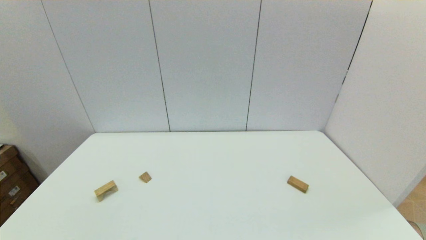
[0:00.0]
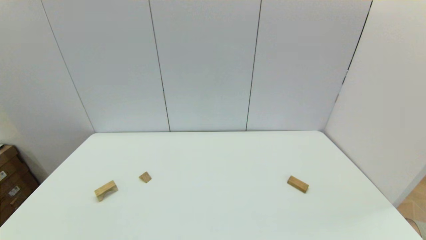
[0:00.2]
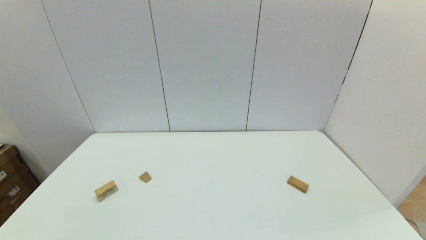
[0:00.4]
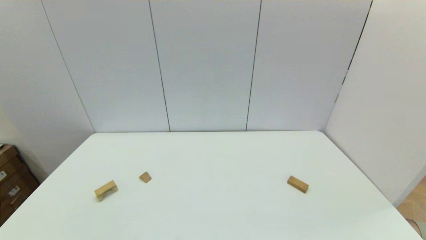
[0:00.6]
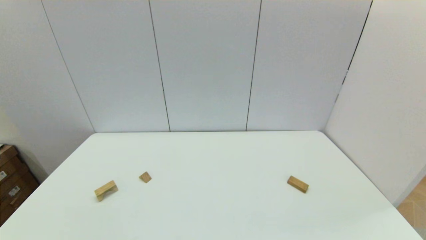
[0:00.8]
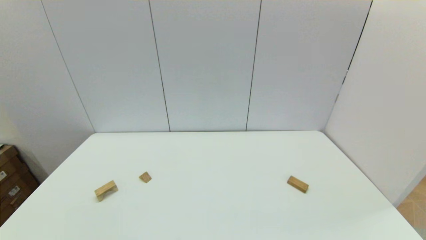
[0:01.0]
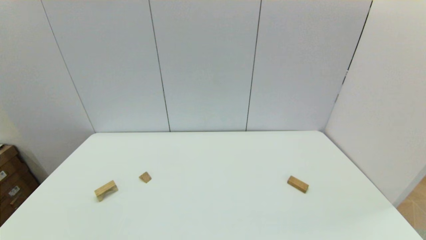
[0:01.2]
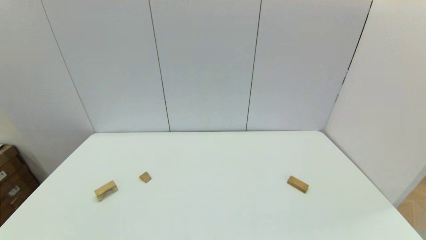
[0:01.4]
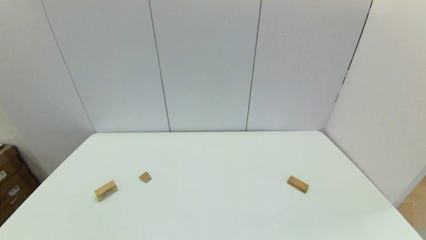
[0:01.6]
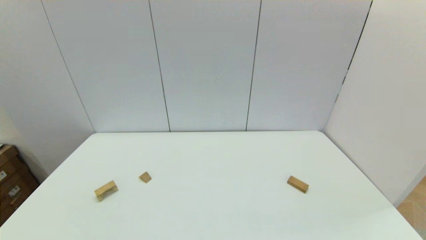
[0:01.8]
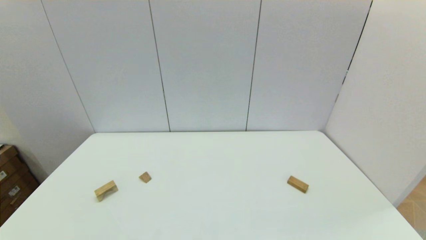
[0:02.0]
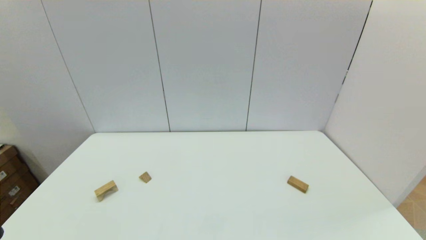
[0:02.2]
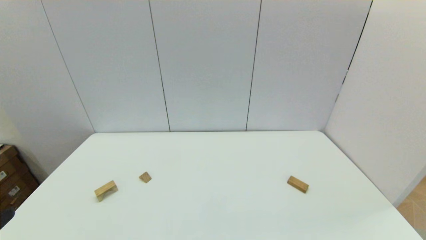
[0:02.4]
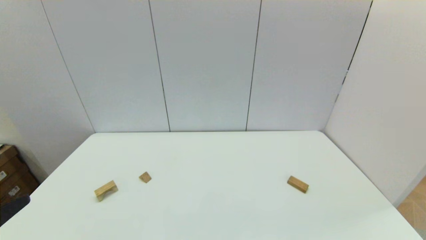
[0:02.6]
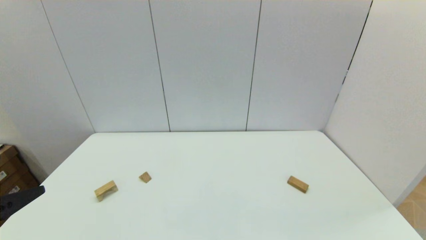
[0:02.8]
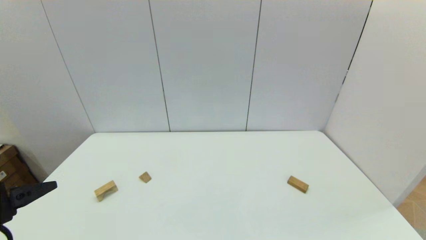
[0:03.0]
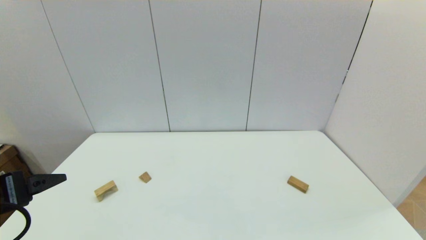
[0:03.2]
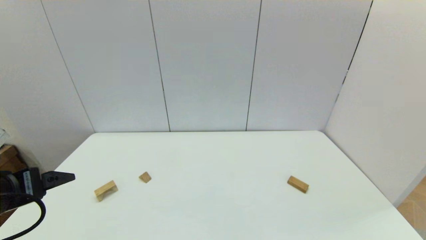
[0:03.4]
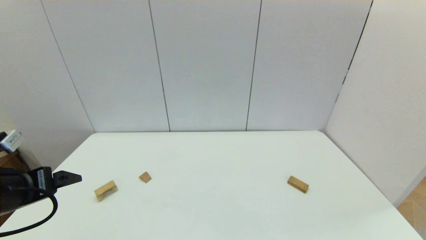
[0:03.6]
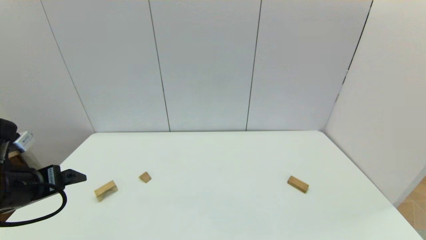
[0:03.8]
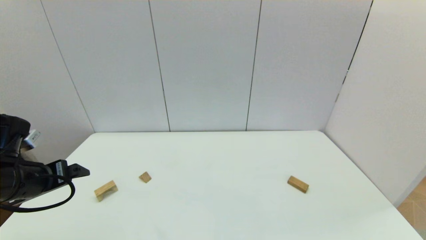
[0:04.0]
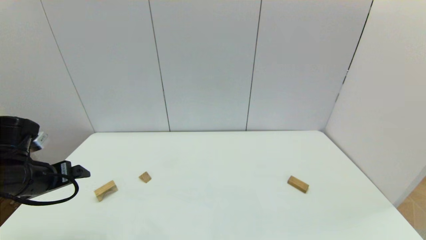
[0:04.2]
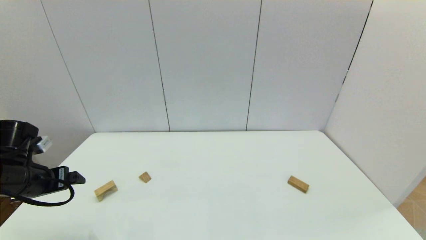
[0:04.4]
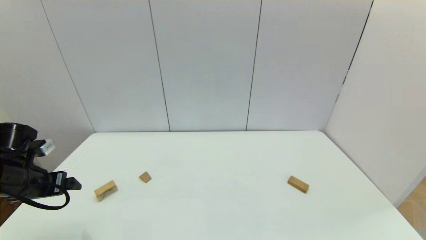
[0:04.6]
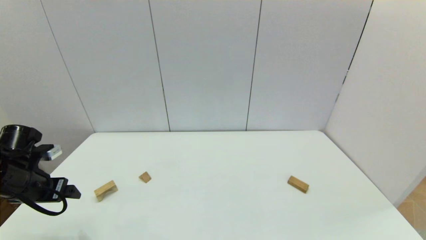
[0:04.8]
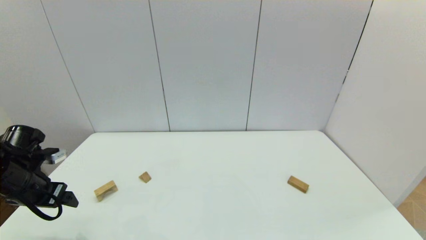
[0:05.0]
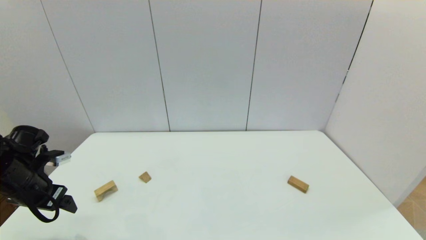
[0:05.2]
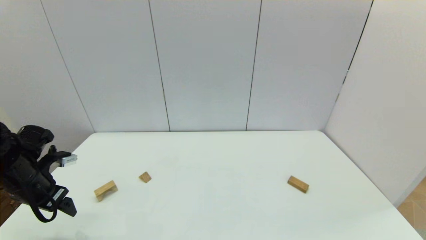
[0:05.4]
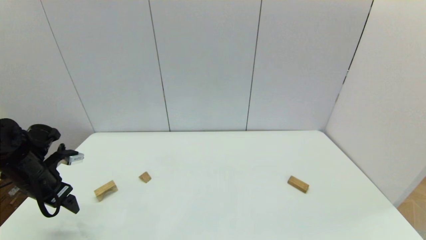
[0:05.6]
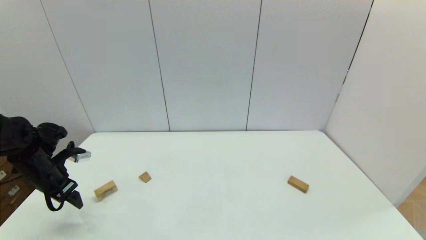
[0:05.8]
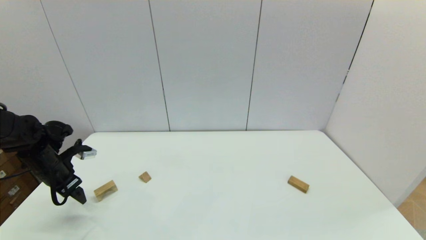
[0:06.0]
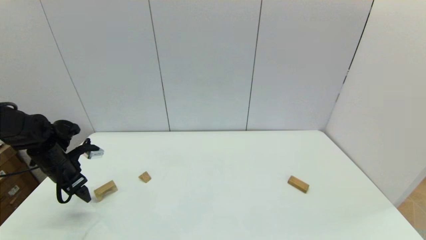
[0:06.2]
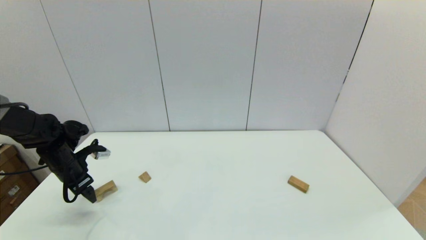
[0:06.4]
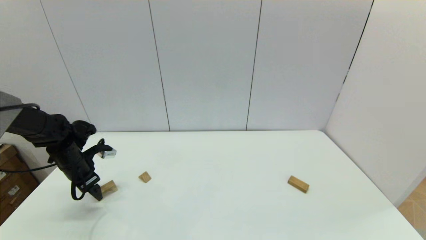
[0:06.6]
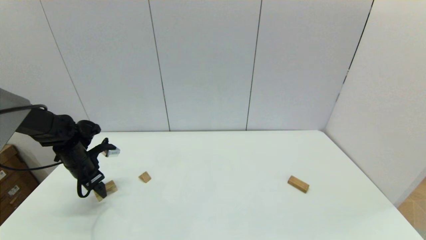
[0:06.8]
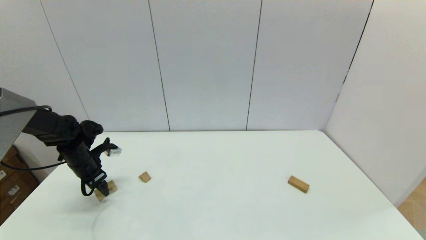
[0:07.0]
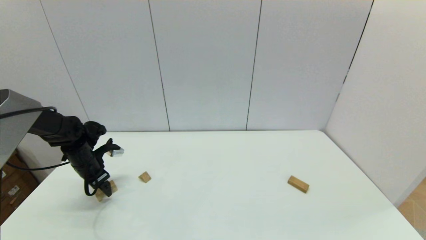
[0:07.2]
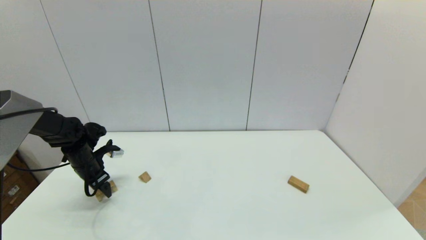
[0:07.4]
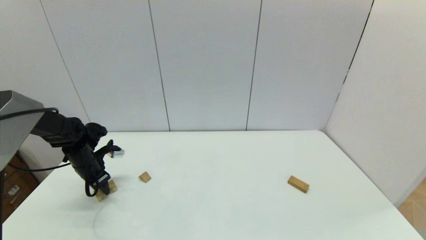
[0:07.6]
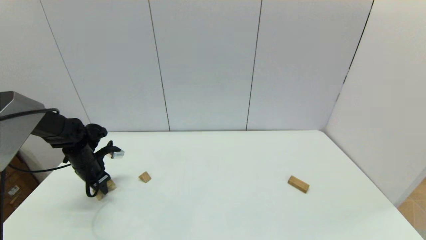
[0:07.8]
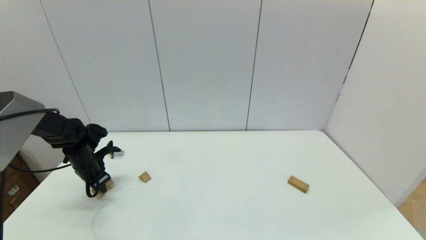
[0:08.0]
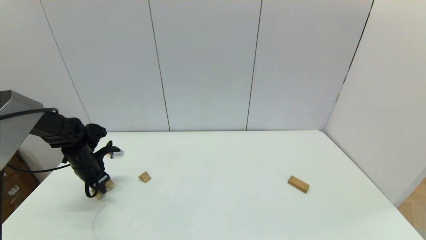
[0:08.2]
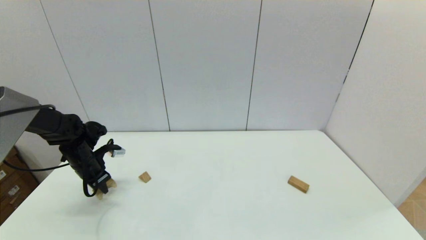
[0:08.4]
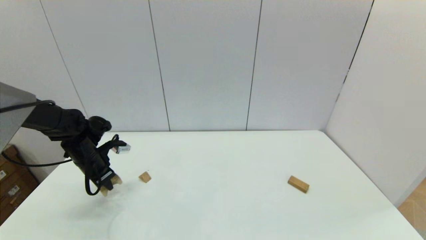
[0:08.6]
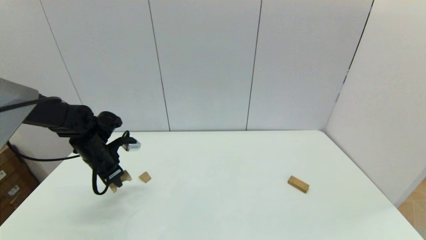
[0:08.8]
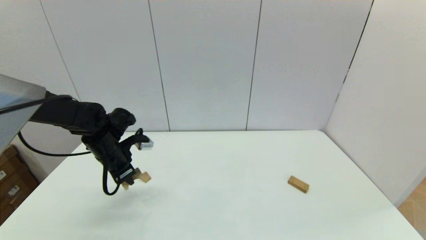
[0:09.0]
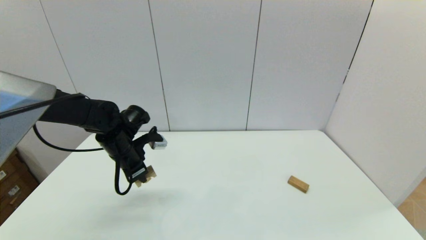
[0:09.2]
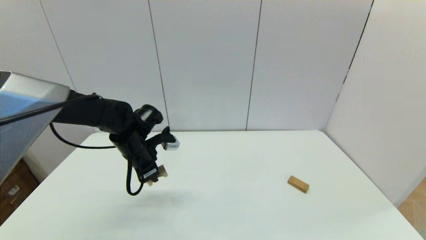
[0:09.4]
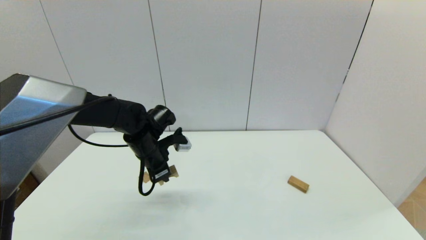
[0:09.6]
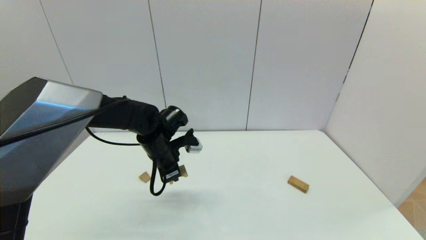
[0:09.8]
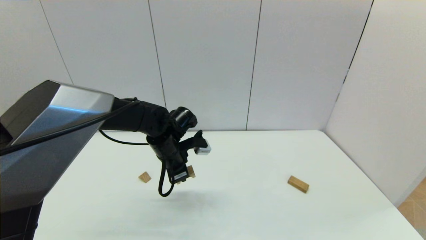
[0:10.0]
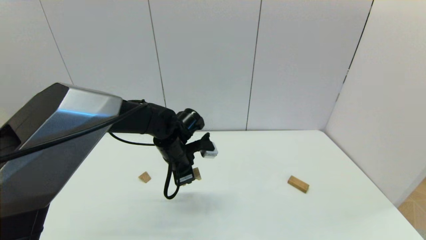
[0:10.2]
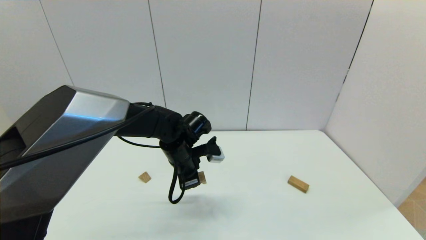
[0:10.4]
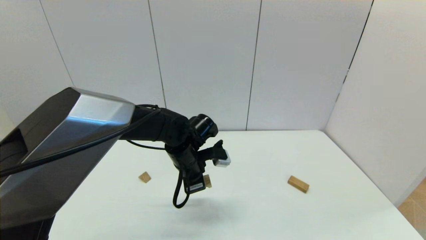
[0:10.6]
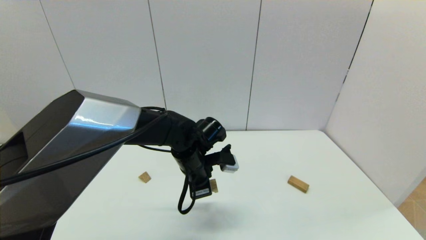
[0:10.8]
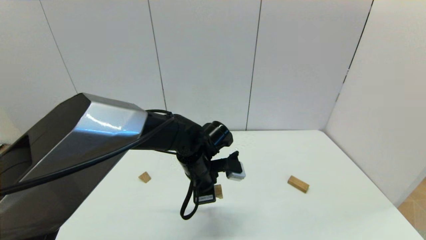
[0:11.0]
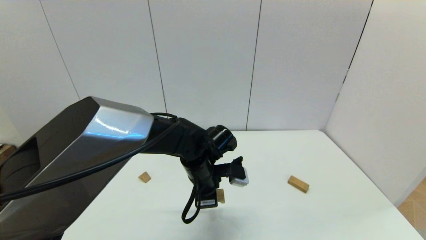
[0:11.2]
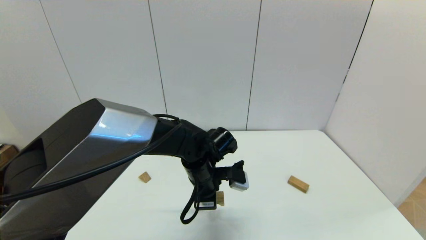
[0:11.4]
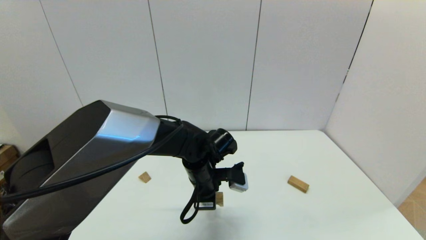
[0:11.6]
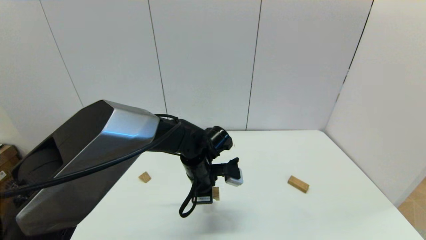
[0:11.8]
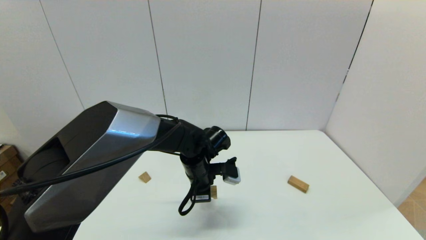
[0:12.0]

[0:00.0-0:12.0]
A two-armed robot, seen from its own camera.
Task of the whole recording: place the arched building blocks in the center of the table, set up the rectangular building blocks, and then set up the triangular building blocks.
Step, 0:02.2 to 0:07.8: Grasp the arch-shaped block with the left gripper.
0:01.6 to 0:03.0: The left gripper goes about 15 cm forward and upward.
0:03.0 to 0:04.4: The left gripper goes some 15 cm forward, downward and to the left.
0:04.4 to 0:06.0: The left gripper moves forward, roughly 10 cm.
0:06.0 to 0:07.6: The left gripper shifts roughly 5 cm forward, and closes its fingers.
0:07.6 to 0:09.0: The left gripper is displaced to the right and upward by roughly 15 cm, and closes up.
0:09.0 to 0:10.4: The left gripper travels to the right by roughly 20 cm.

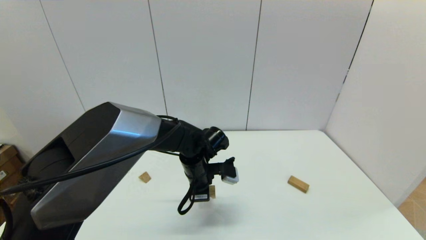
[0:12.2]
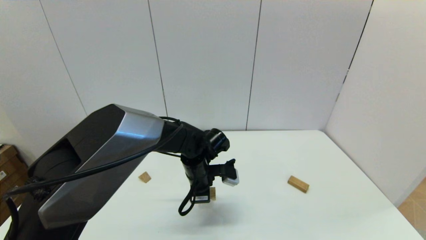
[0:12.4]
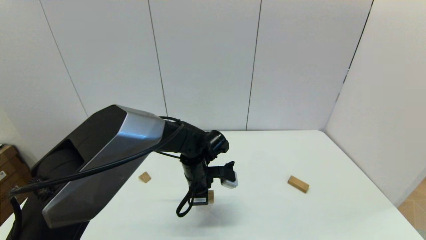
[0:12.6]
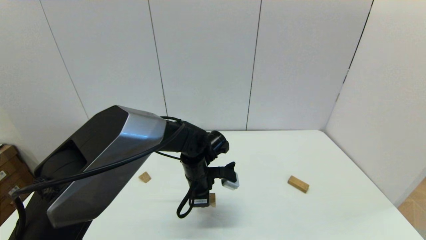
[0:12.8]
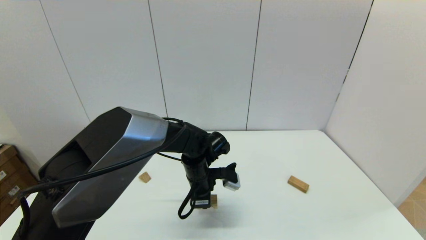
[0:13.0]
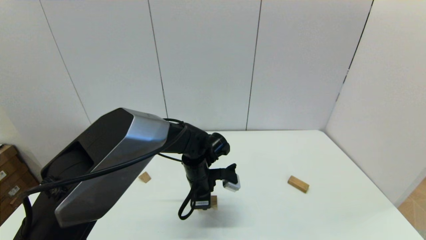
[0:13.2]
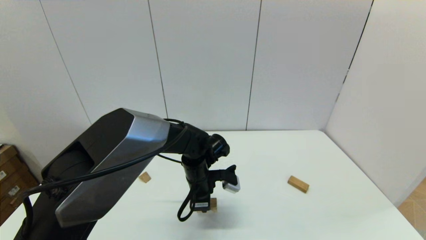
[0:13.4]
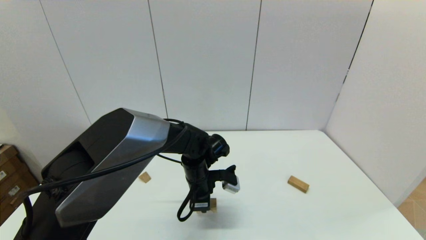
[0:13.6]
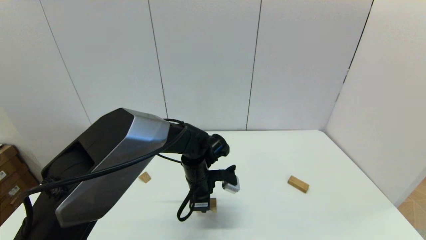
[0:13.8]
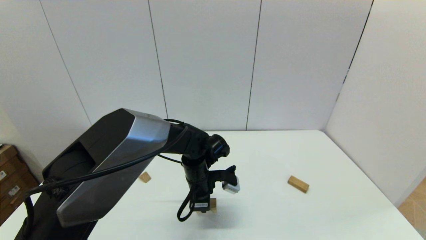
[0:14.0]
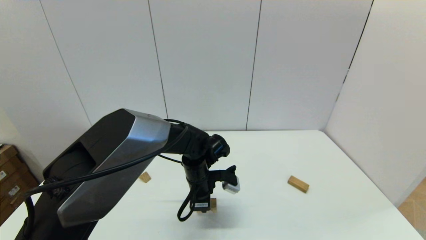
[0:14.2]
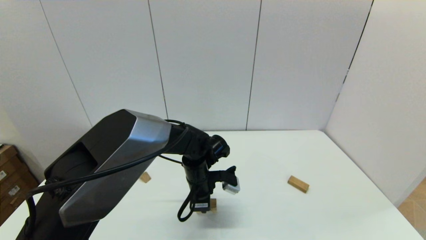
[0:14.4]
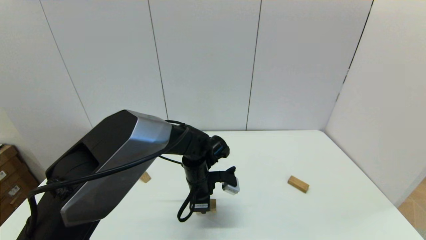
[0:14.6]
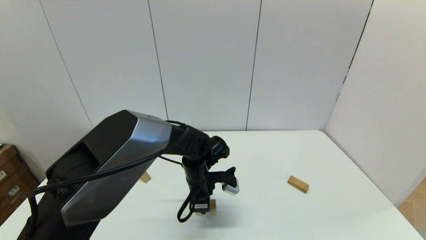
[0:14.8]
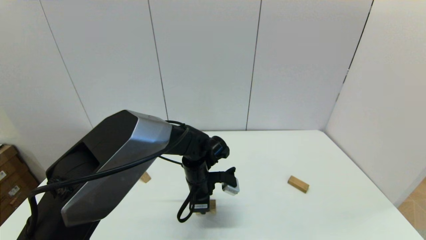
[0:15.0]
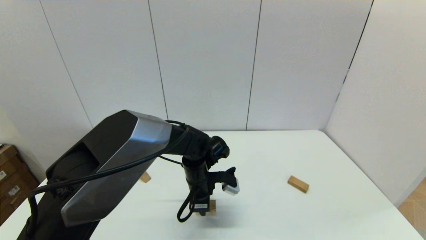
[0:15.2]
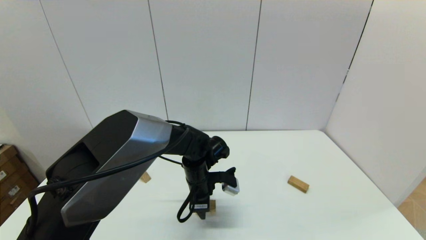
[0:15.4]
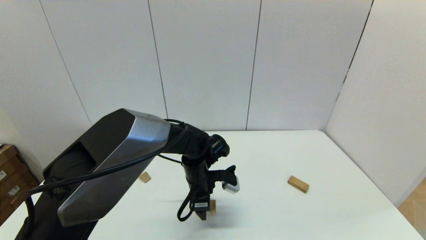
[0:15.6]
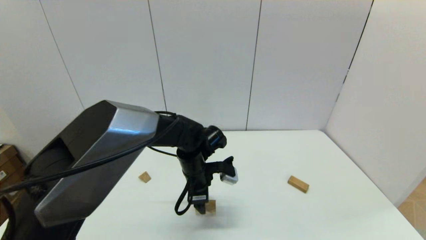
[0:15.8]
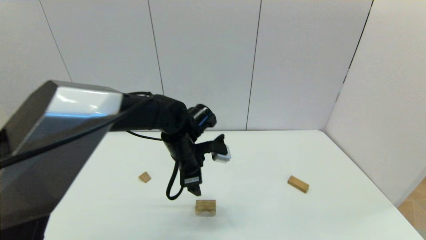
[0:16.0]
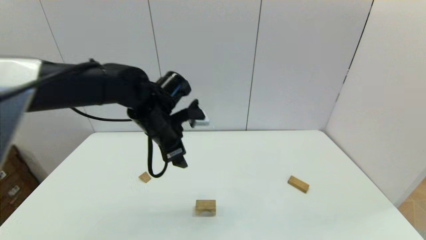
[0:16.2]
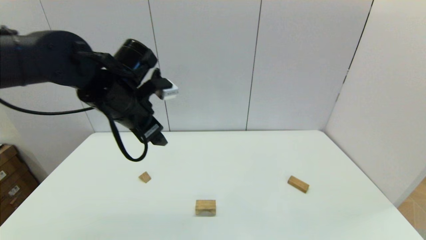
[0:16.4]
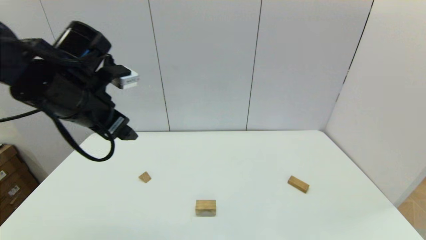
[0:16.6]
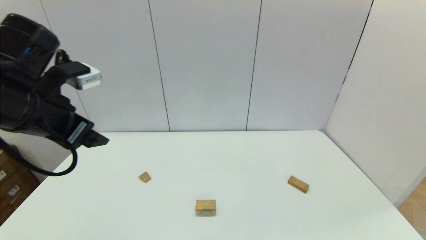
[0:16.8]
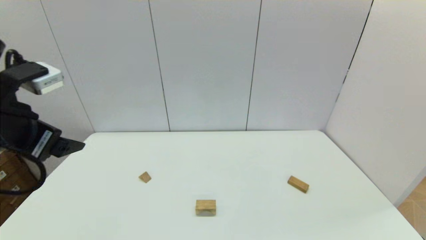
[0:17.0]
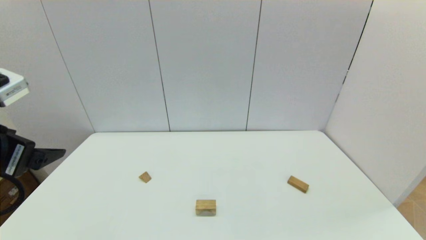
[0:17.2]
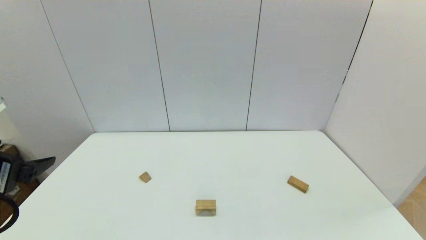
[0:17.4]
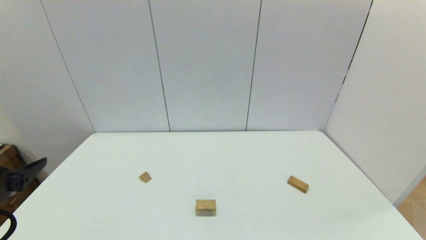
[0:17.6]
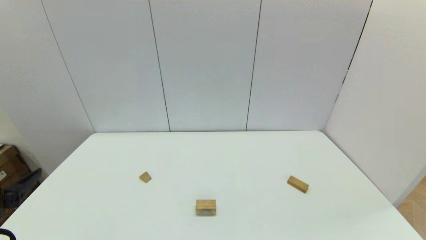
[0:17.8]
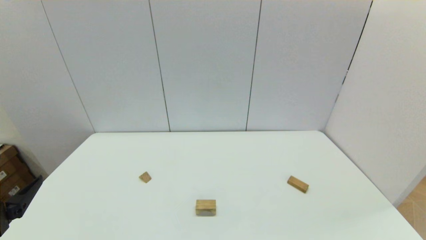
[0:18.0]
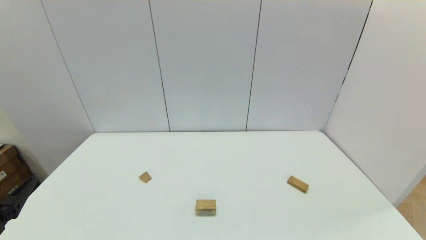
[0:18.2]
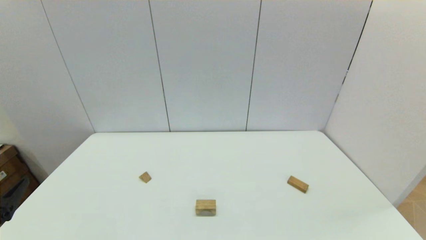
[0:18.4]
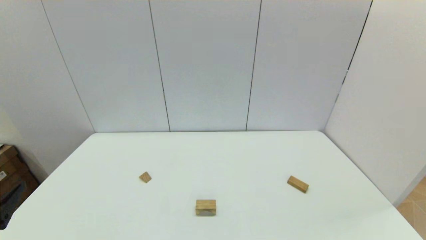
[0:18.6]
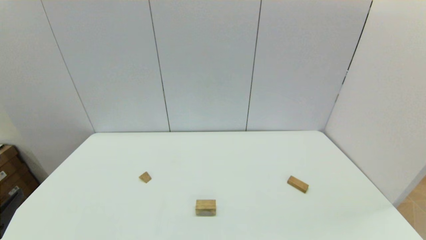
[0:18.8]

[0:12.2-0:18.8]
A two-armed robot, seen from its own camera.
Task of the whole recording: place the arched building blocks in the center of the table, set up the rectangular building blocks, and then set up the triangular building blocks.
Step, 0:12.2 to 0:15.2: Place the arch-shaped block in the center of view with the left gripper.
0:12.2 to 0:13.8: There are only small adjustments of the grippers.
0:13.8 to 0:15.4: The left gripper opens up.
0:15.4 to 0:17.2: The left gripper moves to the left, upward and backward, some 40 cm, and opens.
0:17.2 to 0:18.8: The left gripper moves backward and downward, approximately 15 cm.
